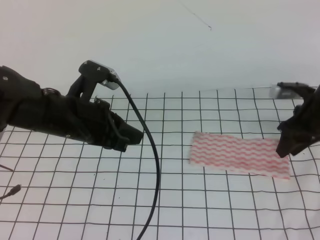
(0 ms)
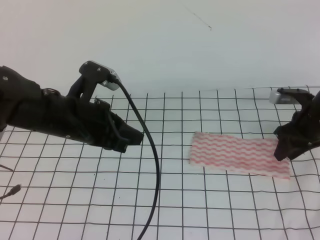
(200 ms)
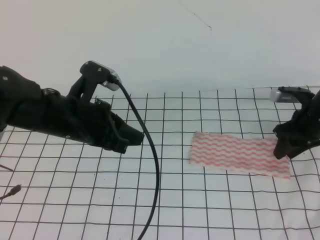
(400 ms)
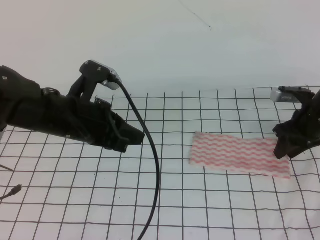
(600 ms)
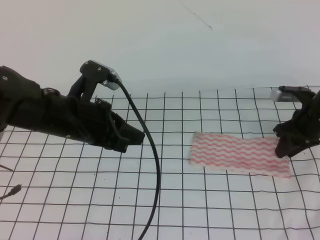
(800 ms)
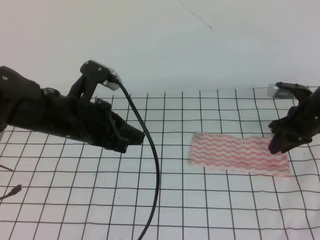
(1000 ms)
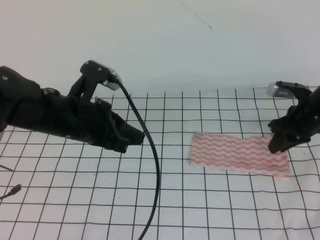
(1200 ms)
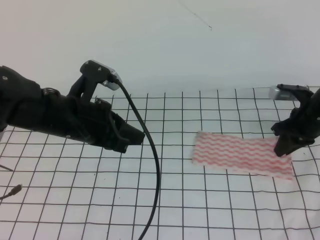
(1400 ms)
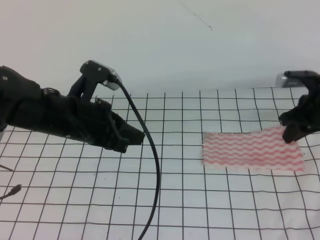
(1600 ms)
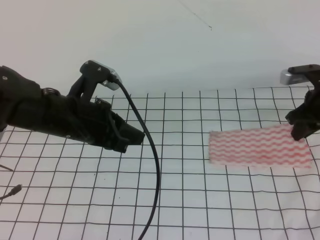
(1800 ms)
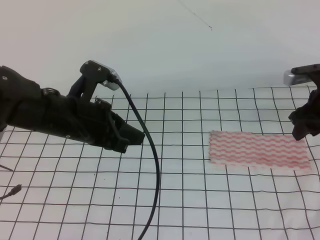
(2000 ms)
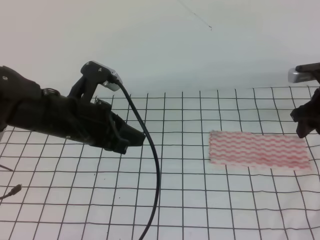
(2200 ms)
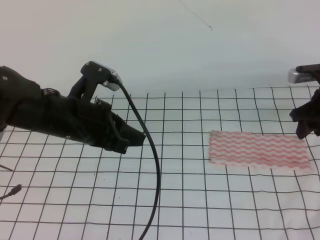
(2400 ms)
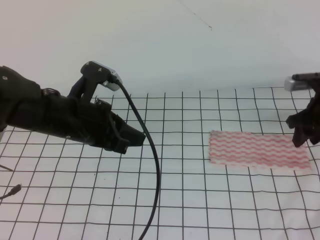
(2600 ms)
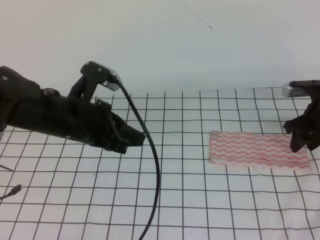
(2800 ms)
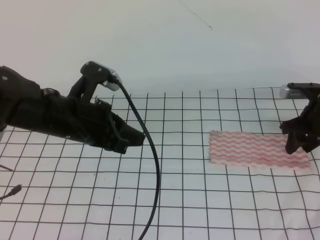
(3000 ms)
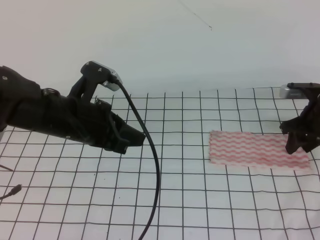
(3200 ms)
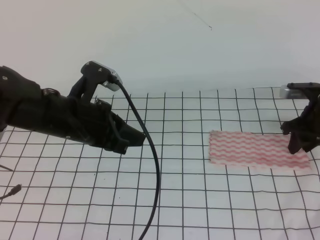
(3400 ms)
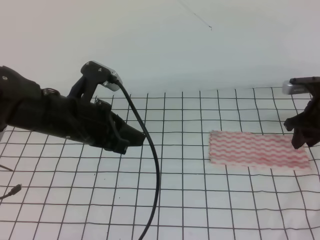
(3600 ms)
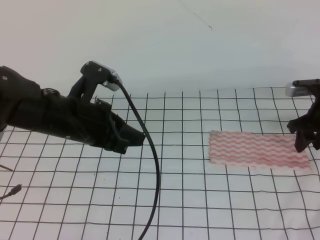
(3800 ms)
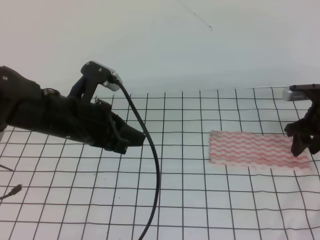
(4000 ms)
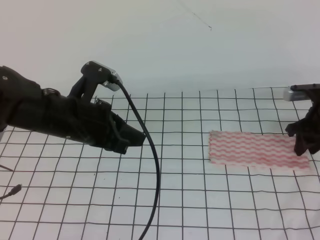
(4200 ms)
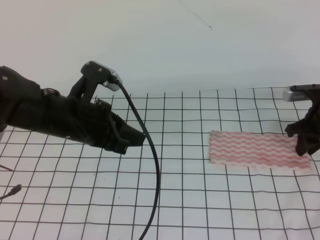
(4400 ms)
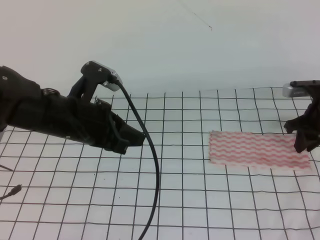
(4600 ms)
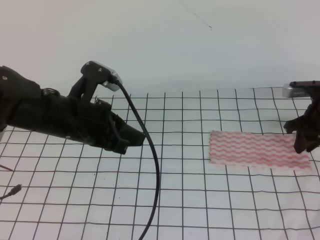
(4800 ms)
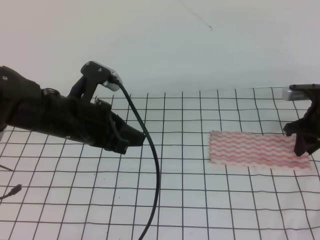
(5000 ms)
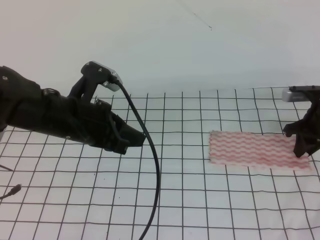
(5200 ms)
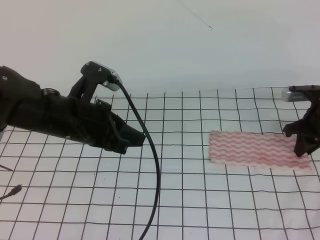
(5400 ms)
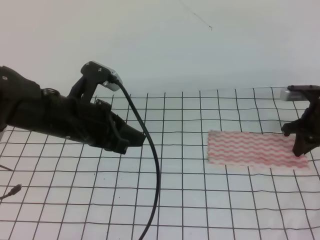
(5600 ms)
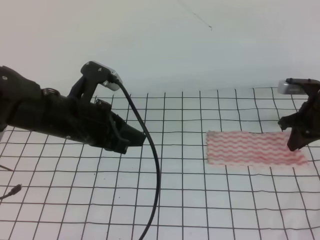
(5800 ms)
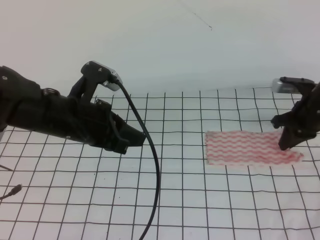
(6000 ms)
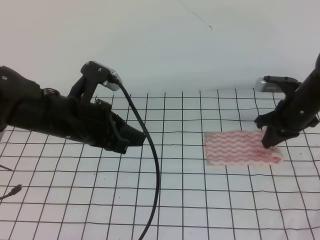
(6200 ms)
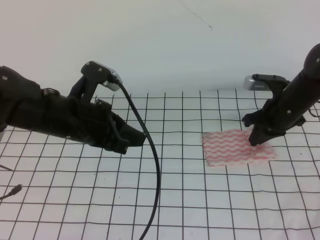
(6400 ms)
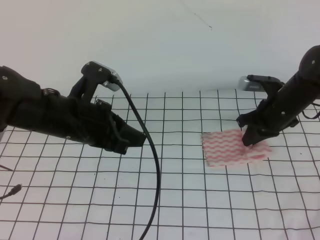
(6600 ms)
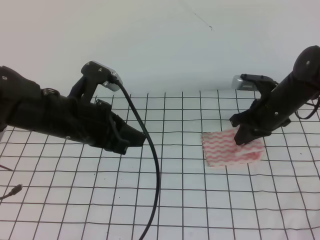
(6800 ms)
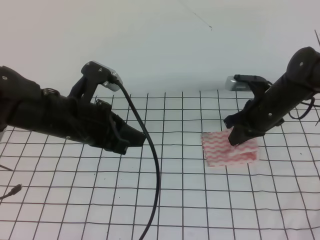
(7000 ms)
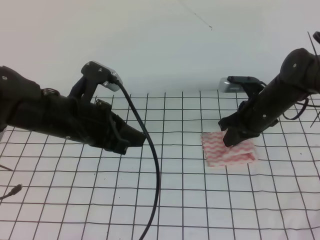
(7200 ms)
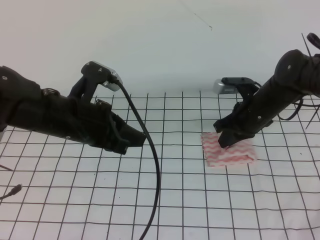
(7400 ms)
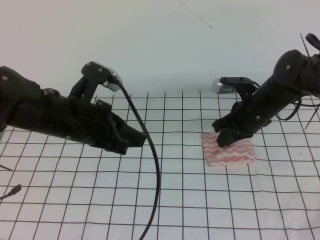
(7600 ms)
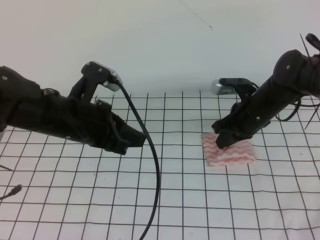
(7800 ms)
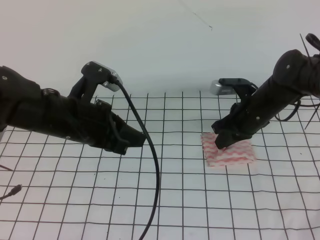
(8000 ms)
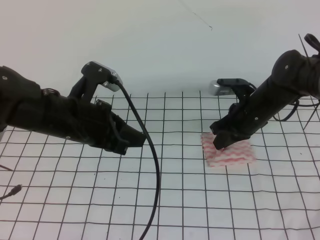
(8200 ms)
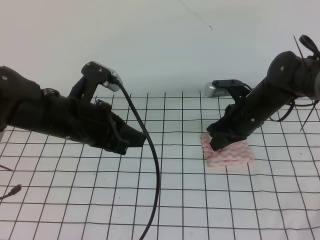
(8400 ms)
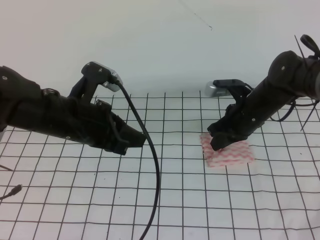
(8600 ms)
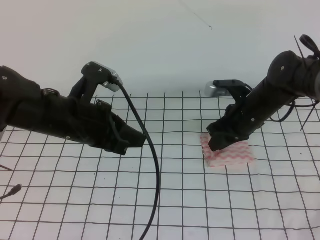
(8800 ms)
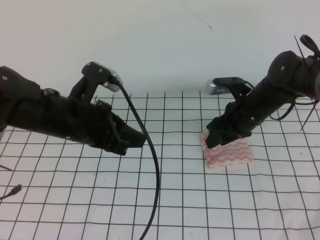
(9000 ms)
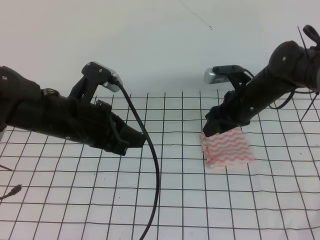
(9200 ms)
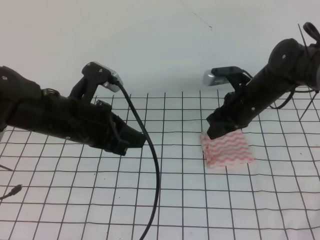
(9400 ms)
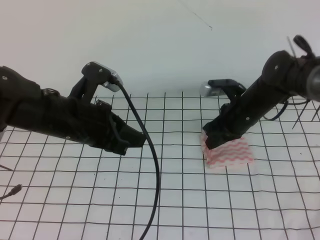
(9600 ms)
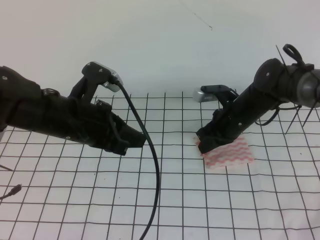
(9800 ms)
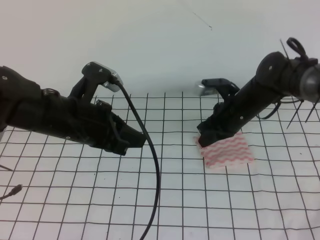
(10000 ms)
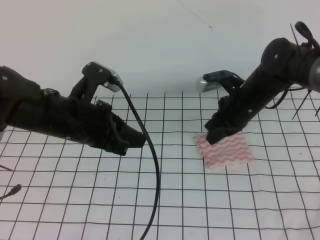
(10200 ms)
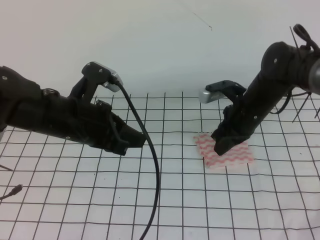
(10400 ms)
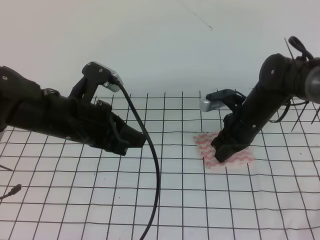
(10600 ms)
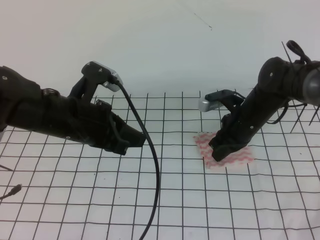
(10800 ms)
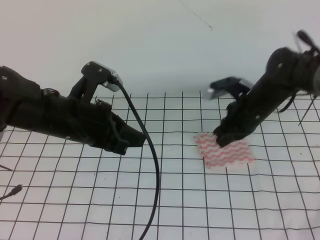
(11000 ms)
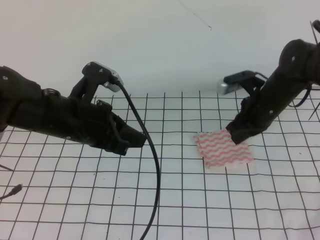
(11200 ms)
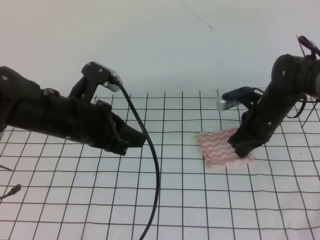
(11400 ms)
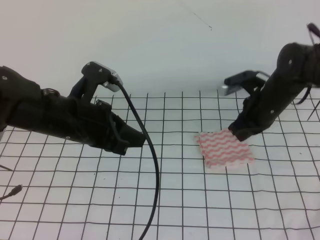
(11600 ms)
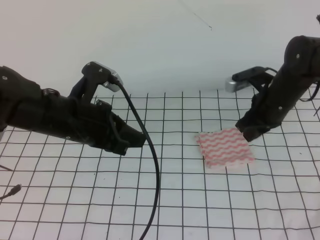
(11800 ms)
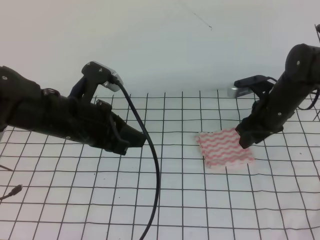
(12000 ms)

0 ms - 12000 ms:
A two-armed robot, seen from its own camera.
0 ms - 1600 ms: The right gripper closes.
1600 ms - 3000 ms: The right gripper opens up.
3000 ms - 4400 ms: The right gripper closes up.
4400 ms - 6000 ms: The right gripper closes up.
6000 ms - 7600 ms: The right gripper travels to the left by about 10 cm.
7600 ms - 9000 ms: The right gripper opens.
9000 ms - 10400 ms: The right gripper closes up.
10400 ms - 12000 ms: The right gripper goes about 5 cm to the right, and opens.

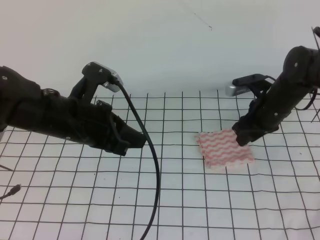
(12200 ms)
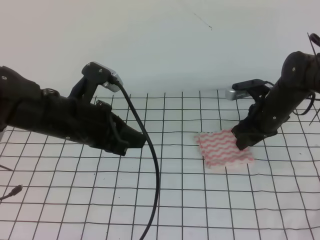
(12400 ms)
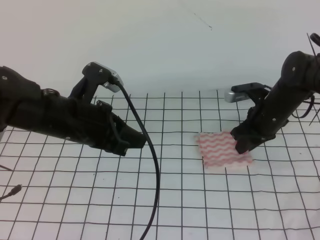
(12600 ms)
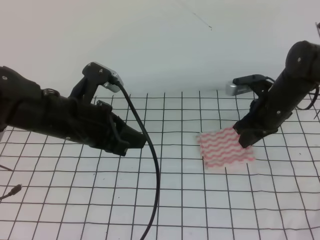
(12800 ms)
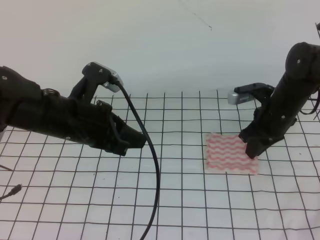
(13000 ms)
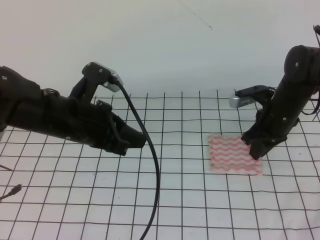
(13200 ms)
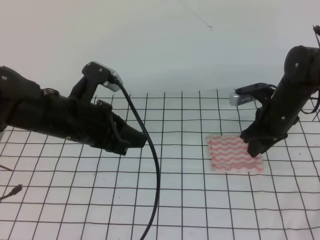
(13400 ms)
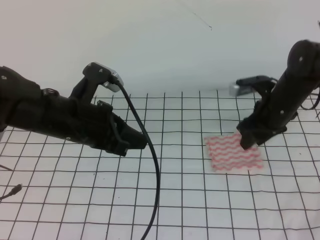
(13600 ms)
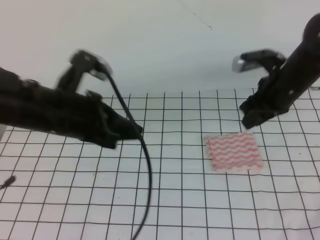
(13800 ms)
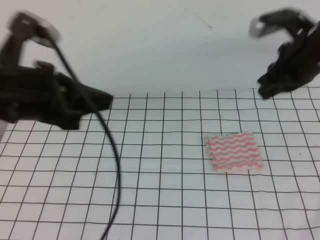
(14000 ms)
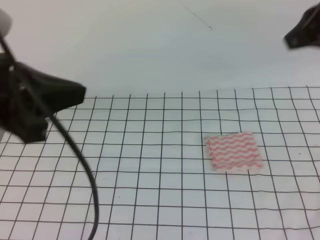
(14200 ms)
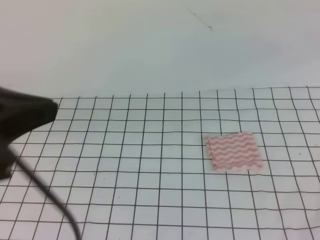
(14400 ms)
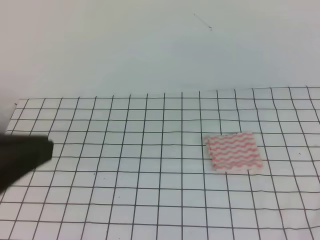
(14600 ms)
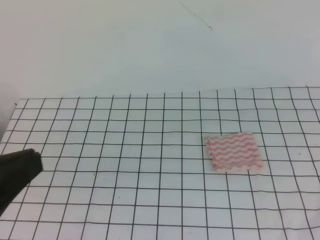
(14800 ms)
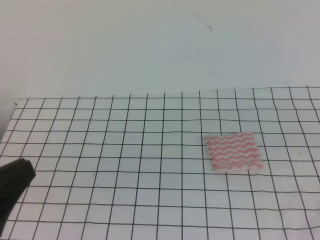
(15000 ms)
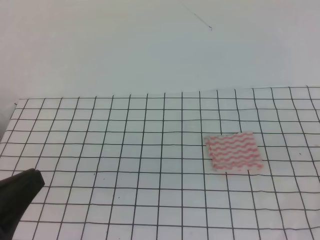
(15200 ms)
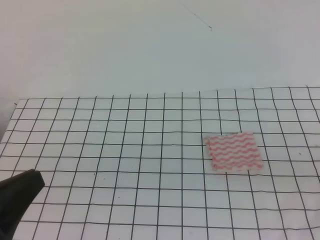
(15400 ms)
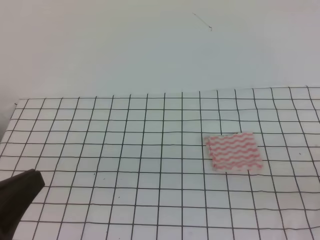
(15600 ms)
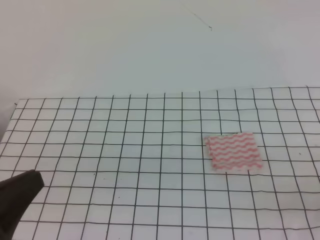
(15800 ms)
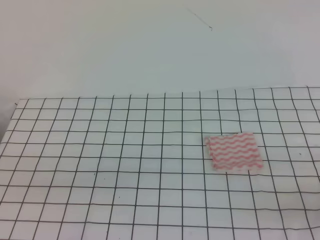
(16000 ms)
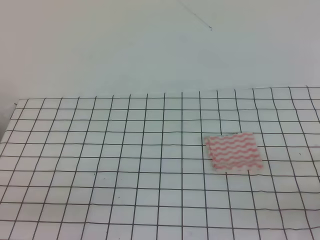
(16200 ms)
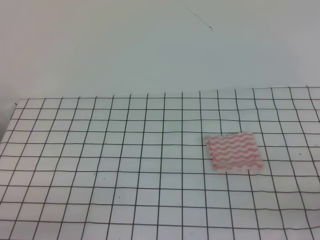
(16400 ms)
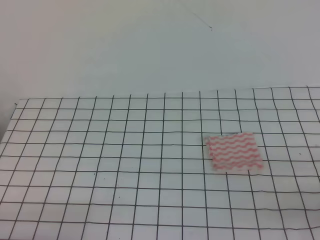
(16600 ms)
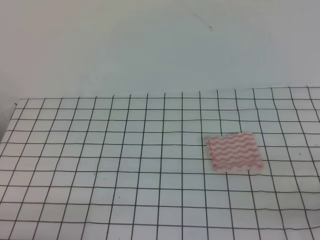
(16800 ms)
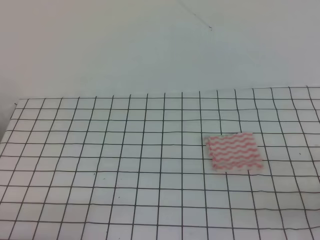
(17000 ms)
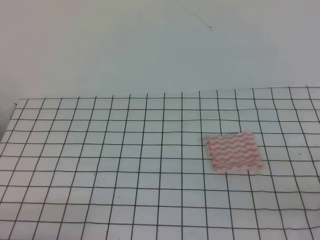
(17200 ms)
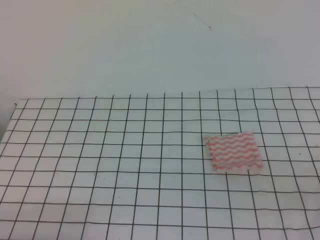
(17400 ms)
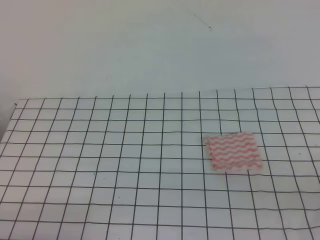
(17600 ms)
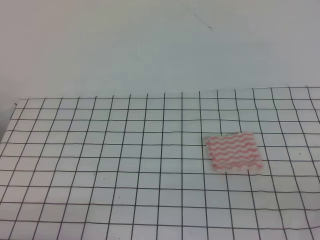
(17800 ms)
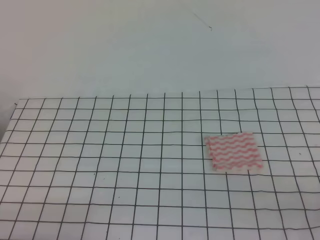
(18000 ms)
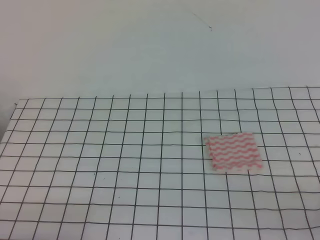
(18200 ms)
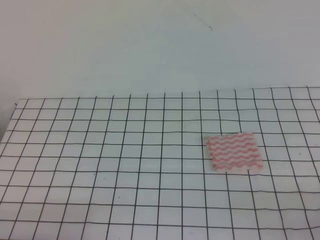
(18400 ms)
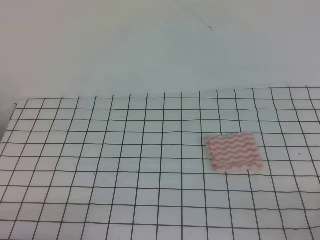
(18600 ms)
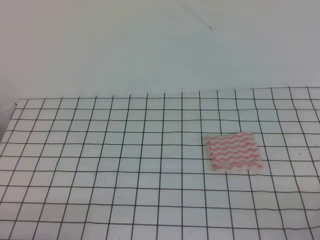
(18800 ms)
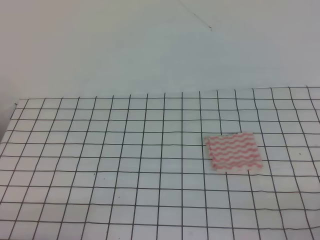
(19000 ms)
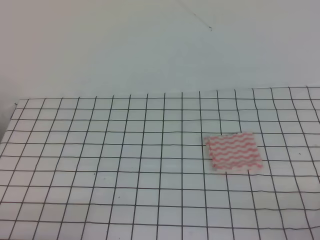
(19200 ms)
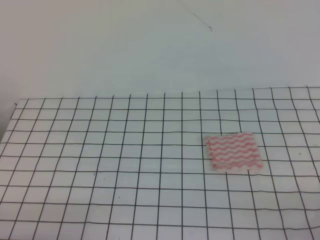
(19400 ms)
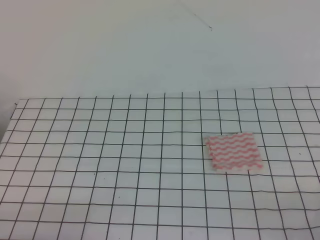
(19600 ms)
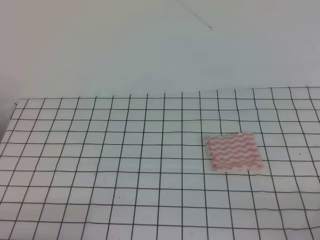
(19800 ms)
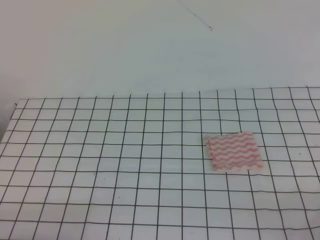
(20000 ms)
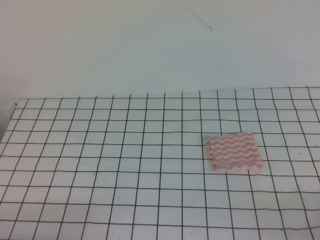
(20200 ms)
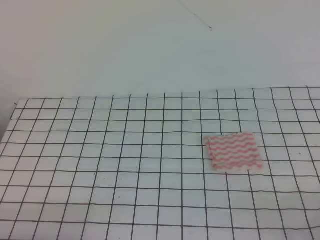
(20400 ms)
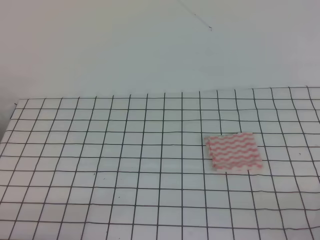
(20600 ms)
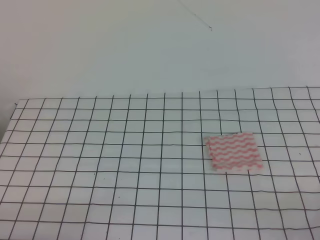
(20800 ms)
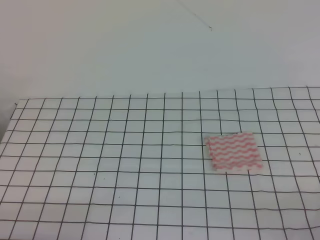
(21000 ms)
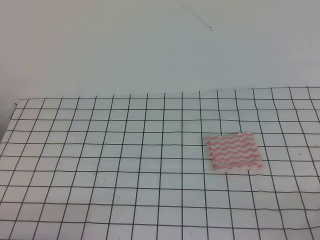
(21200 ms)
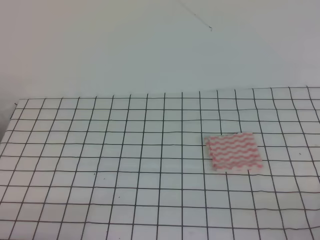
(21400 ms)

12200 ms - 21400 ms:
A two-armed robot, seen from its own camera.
Step, 12200 ms - 21400 ms: Fold the towel.
12200 ms - 13800 ms: The right gripper travels upward by some 10 cm, and closes.
13800 ms - 15200 ms: The two grippers go approximately 25 cm backward. The right gripper closes up.
15200 ms - 16800 ms: The left gripper is displaced downward by some 15 cm; the right gripper goes some 10 cm downward.
19800 ms - 21400 ms: Both grippers stay put.

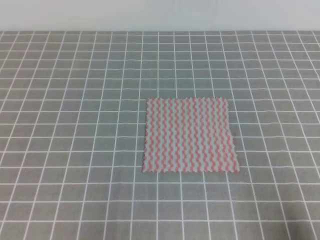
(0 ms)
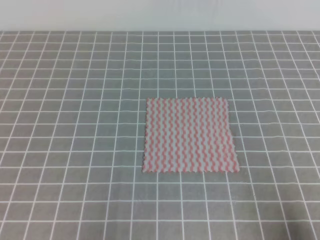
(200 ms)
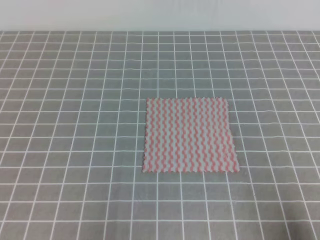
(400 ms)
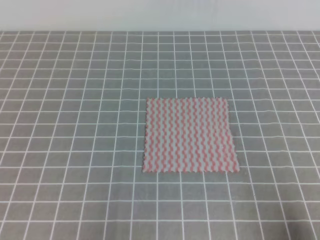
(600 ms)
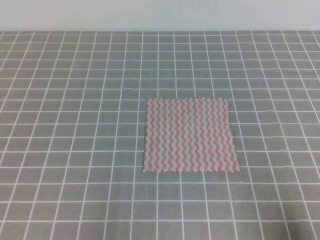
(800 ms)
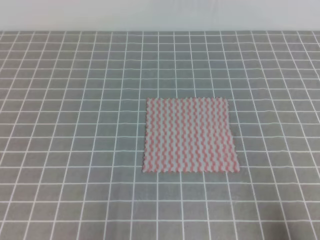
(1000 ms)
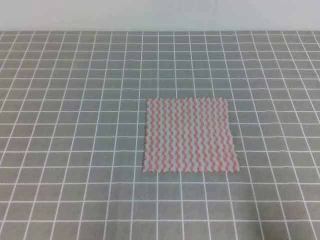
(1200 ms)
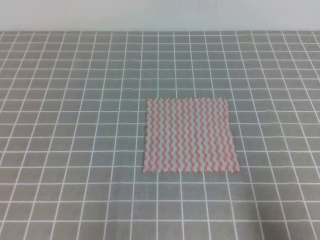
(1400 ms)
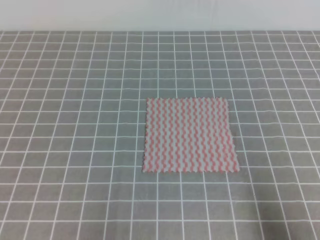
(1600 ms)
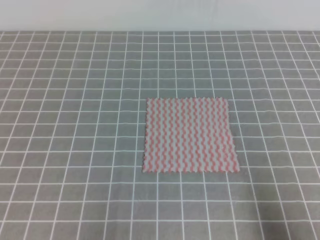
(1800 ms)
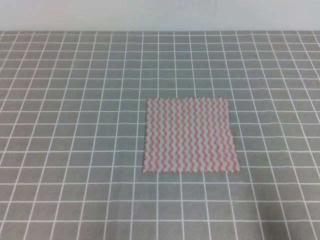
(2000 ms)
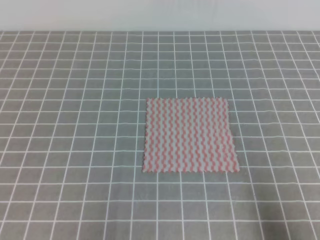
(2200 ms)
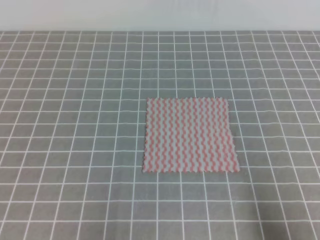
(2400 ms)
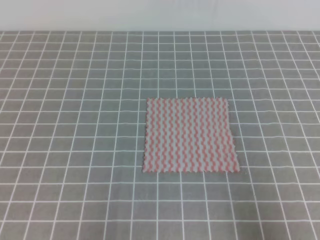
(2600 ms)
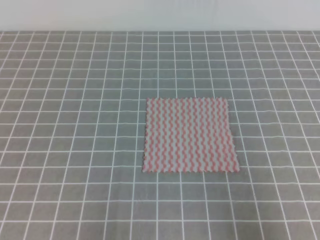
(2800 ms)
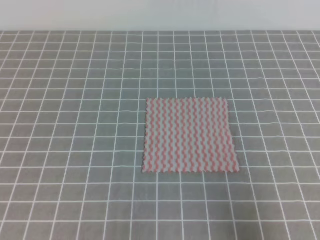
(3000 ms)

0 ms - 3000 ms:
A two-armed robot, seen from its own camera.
1600 ms - 3000 ms: The right gripper shifts approximately 5 cm upward.
